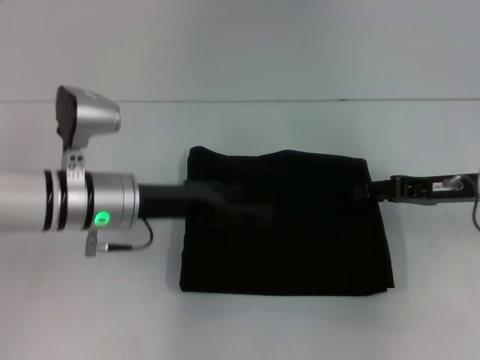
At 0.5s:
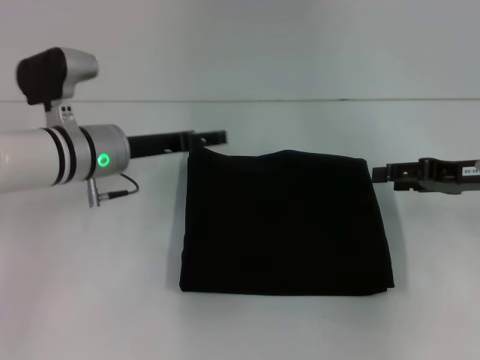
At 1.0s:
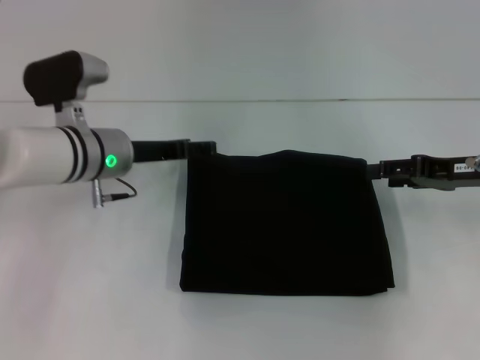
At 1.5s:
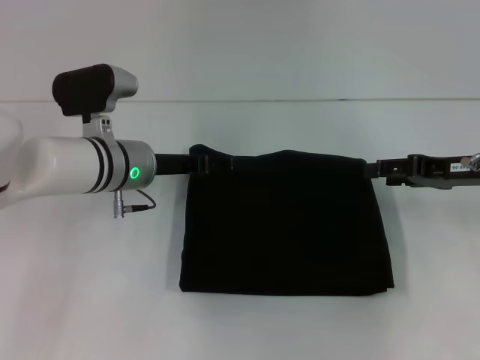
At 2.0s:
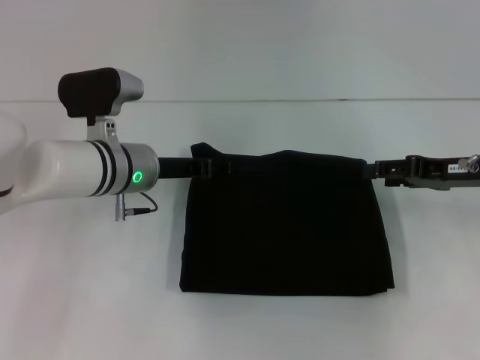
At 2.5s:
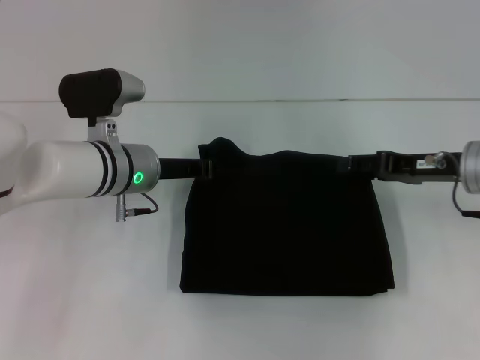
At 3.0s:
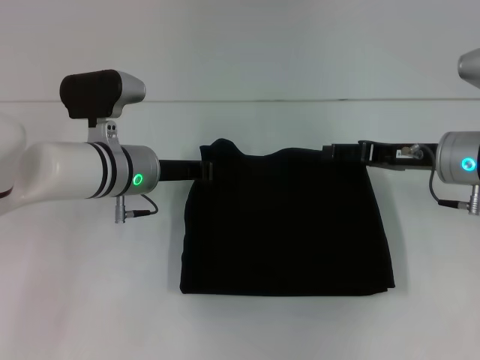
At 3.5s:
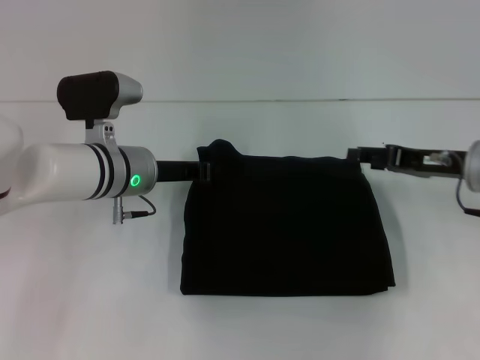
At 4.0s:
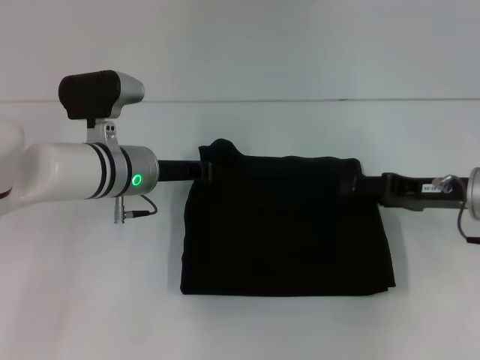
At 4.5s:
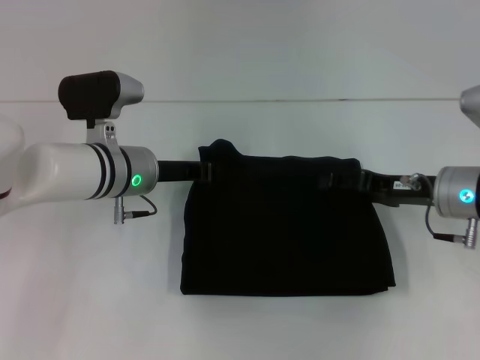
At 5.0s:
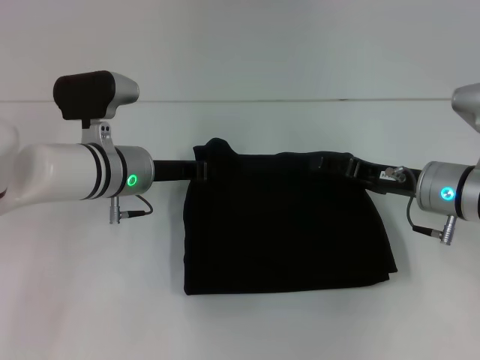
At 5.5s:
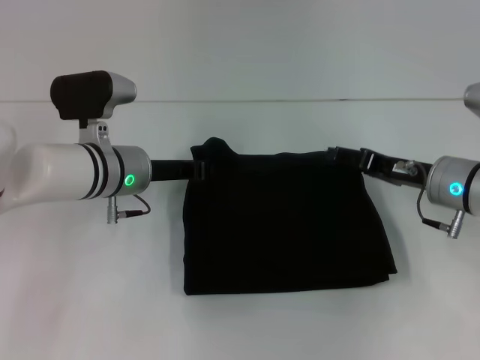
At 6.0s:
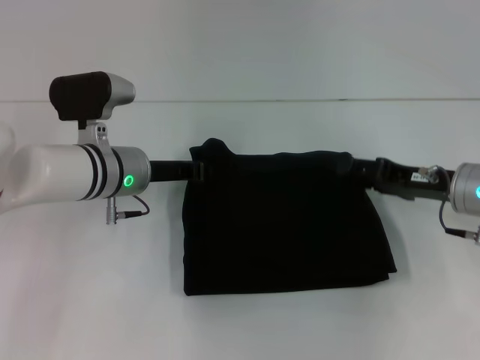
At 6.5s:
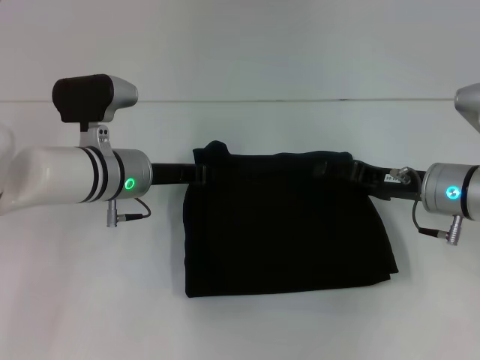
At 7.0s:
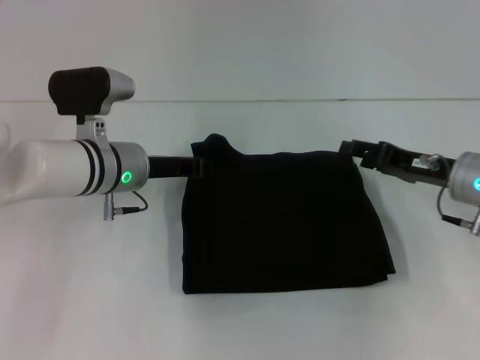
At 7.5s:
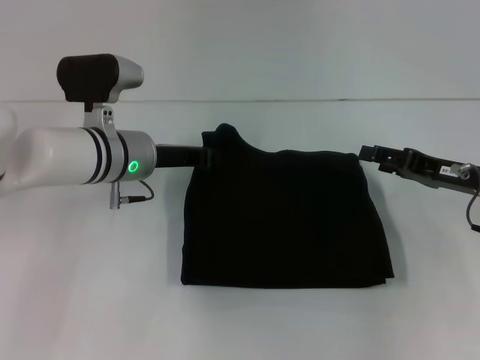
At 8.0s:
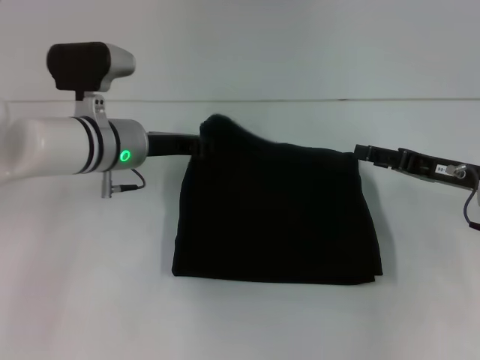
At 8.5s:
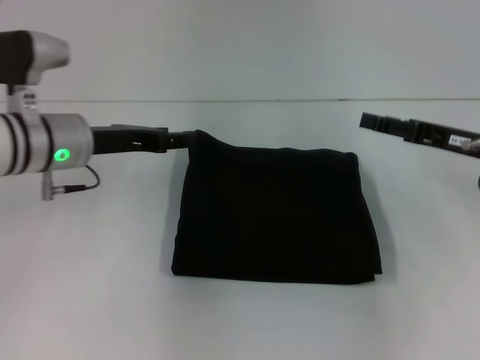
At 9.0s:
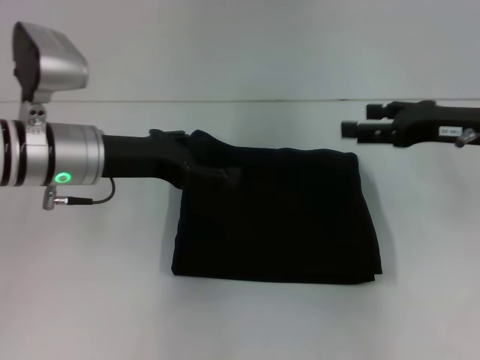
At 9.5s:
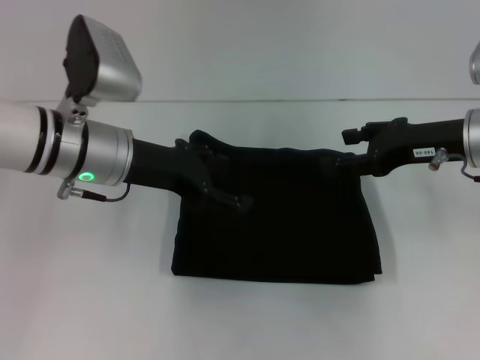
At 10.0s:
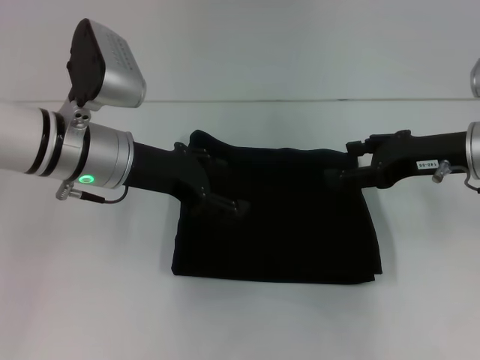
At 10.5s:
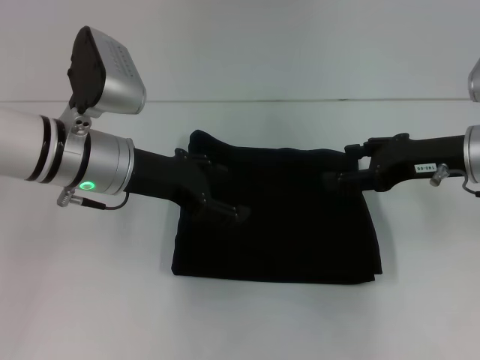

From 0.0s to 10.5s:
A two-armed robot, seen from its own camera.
From 0.0s to 2.0s: The right gripper opens up; the left gripper travels forward by roughly 5 cm.
From 2.0s to 4.0s: The left gripper closes its fingers.
From 4.0s to 6.5s: The grippers move only a little.
From 6.5s to 8.5s: The right gripper shifts approximately 5 cm to the right. Meanwhile the left gripper is displaced to the left and upward by approximately 10 cm, and opens.
From 8.5s to 10.5s: The left gripper changes place by roughly 5 cm, and opens up.
